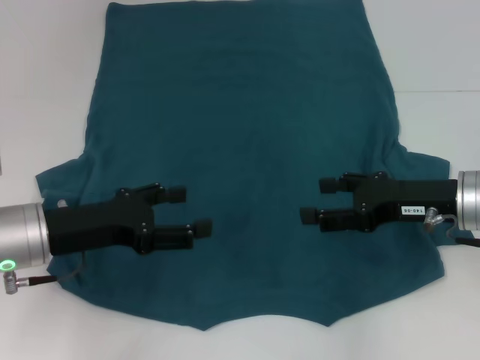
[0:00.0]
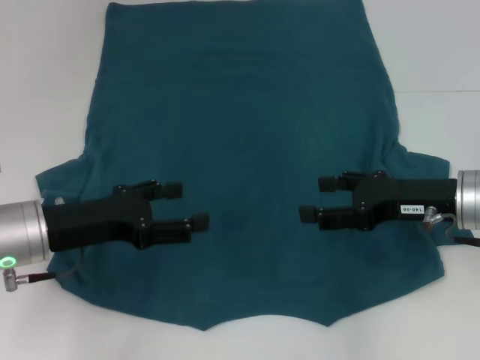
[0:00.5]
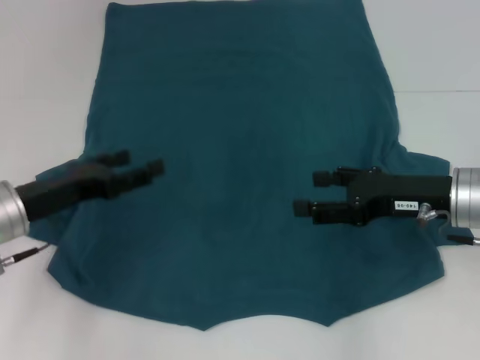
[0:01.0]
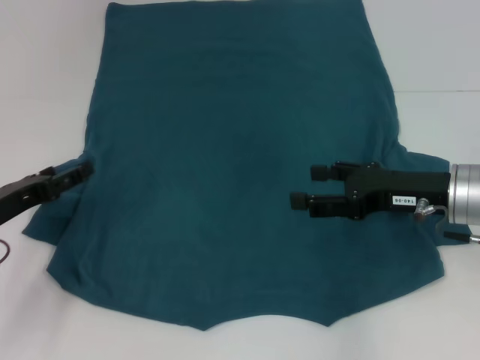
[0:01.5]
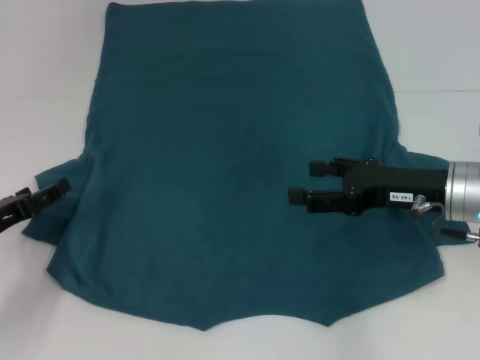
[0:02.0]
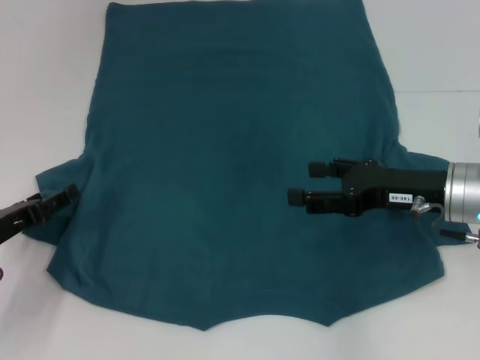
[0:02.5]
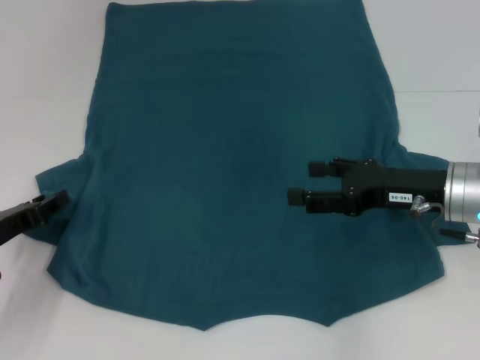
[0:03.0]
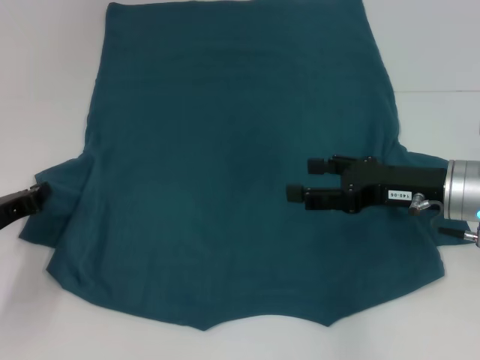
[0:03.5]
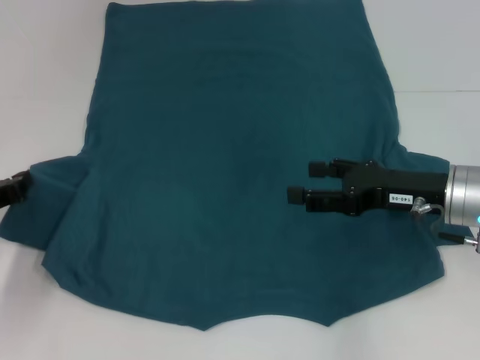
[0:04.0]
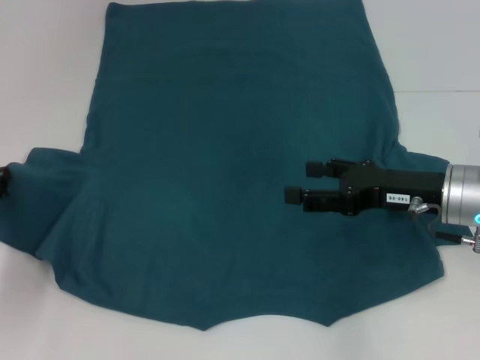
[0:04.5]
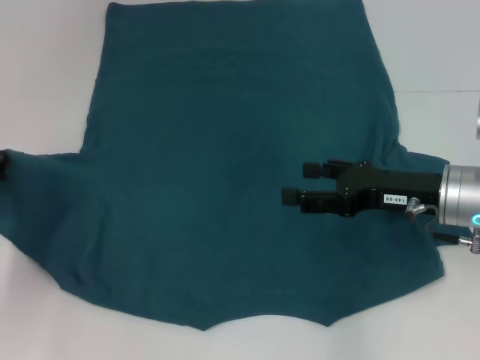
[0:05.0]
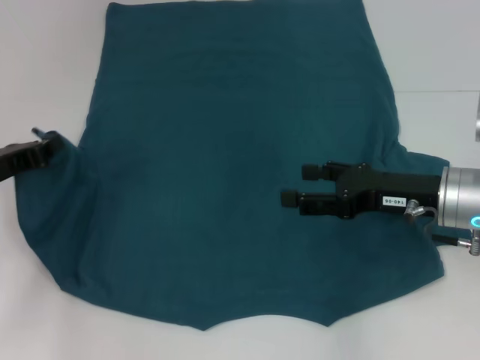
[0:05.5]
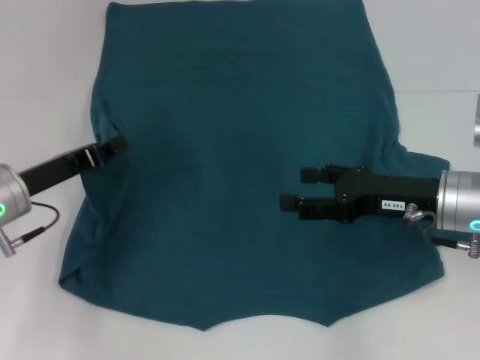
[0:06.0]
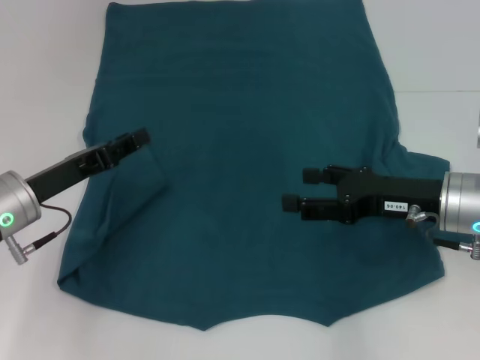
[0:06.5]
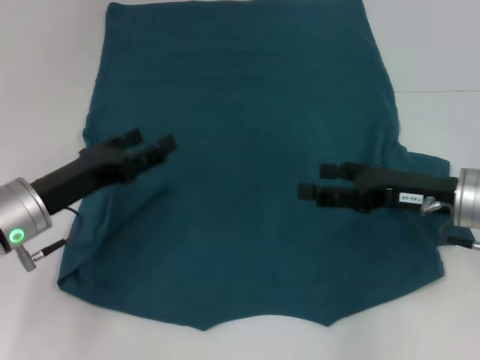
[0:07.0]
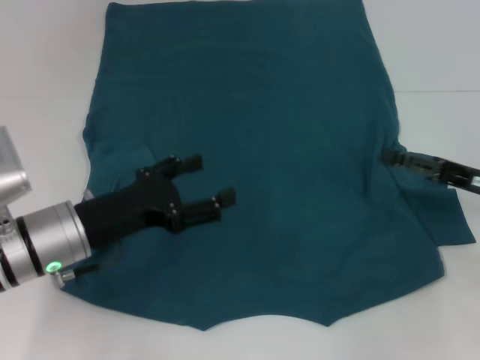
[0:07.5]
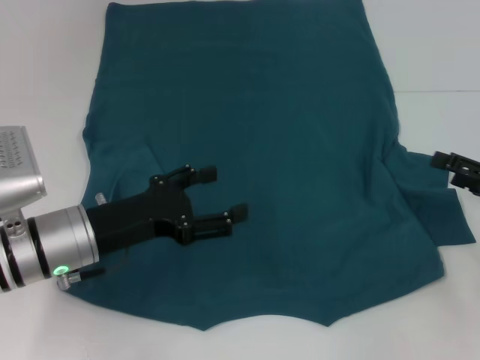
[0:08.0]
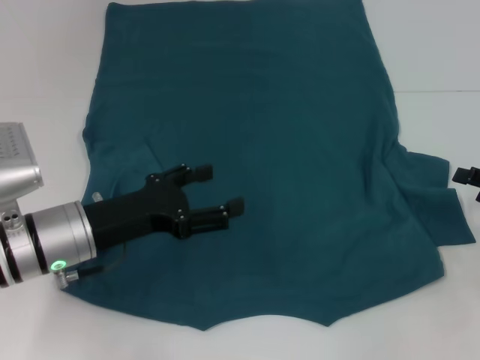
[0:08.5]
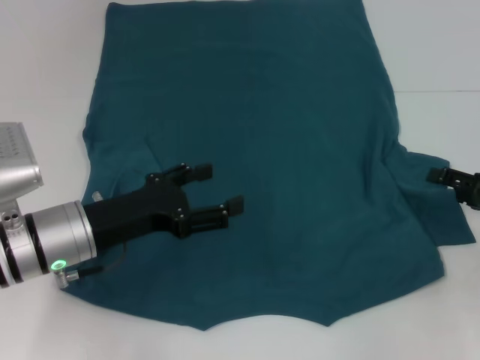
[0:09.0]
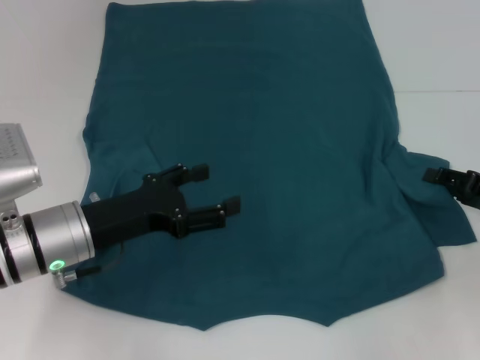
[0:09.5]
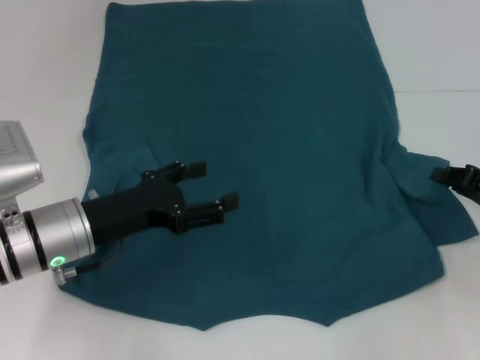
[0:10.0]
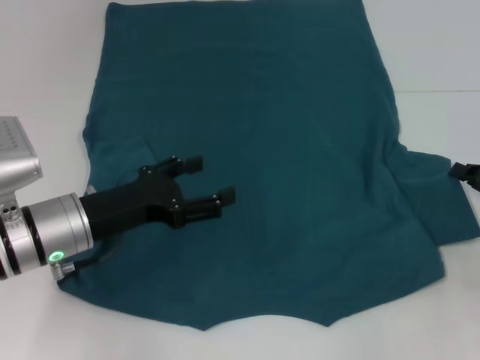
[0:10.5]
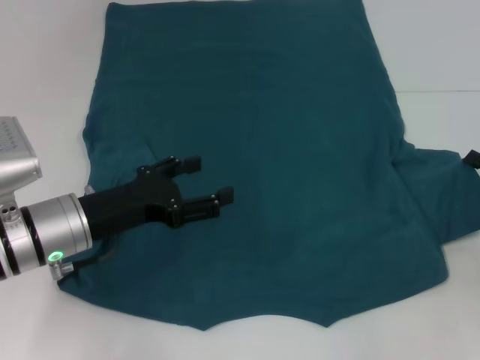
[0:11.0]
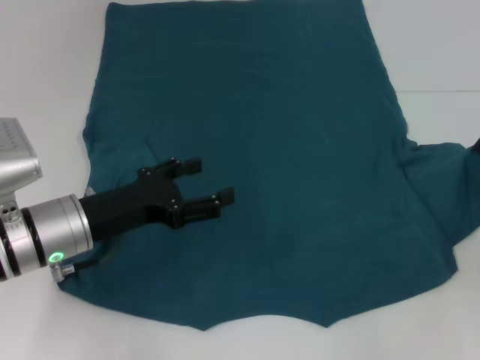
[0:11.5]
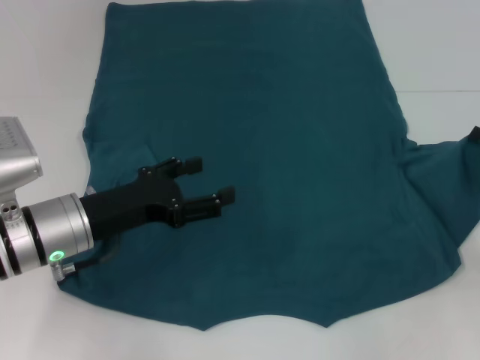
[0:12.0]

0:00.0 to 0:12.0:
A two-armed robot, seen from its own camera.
Step, 0:00.0 to 0:06.0: Fold the bottom left sleeve with your left hand.
0:00.0 to 0:02.0: The left gripper shifts approximately 10 cm to the left and downward.
0:02.0 to 0:04.0: The left gripper closes.
0:04.0 to 0:06.0: The left gripper shifts approximately 5 cm to the right.
0:06.0 to 0:08.0: The right gripper heads to the right, covering roughly 15 cm. Meanwhile the left gripper moves to the right, some 5 cm, and opens.
0:08.0 to 0:10.0: The right gripper closes up.
0:10.0 to 0:12.0: The grippers stay close to where they were, moving slightly.

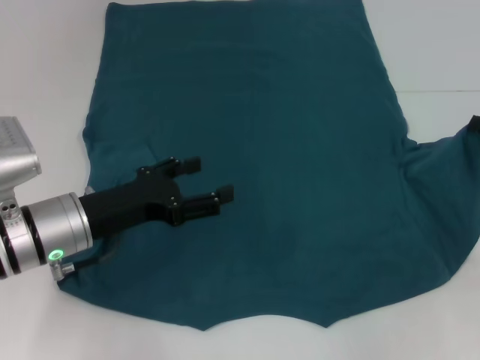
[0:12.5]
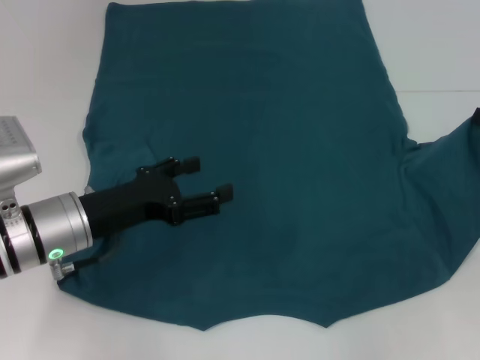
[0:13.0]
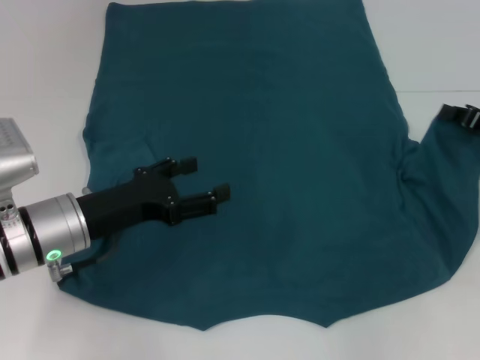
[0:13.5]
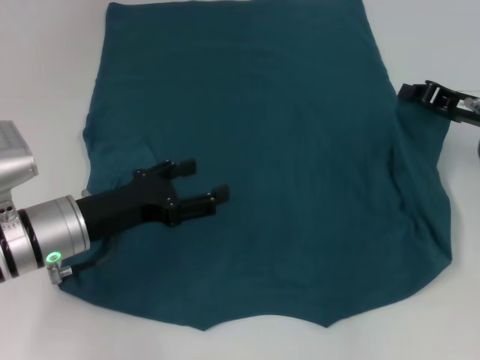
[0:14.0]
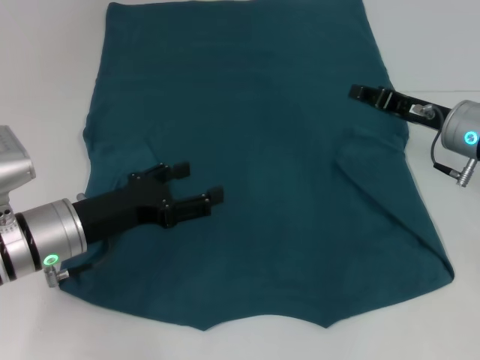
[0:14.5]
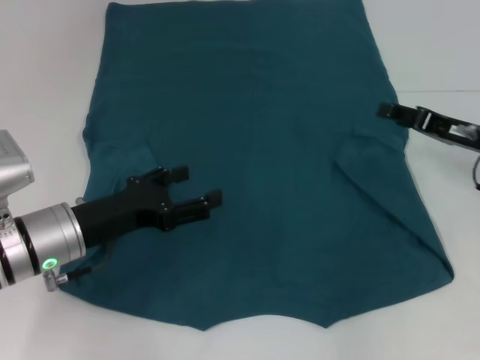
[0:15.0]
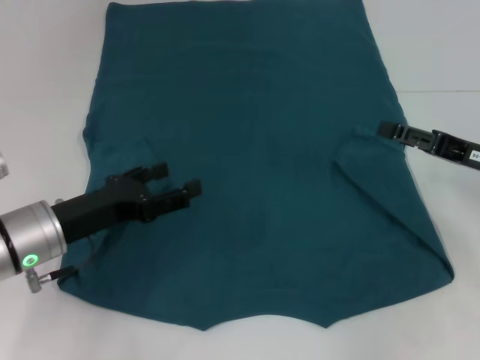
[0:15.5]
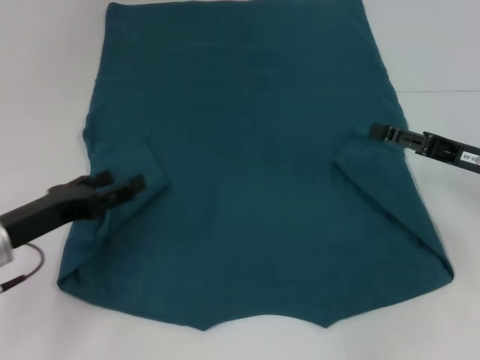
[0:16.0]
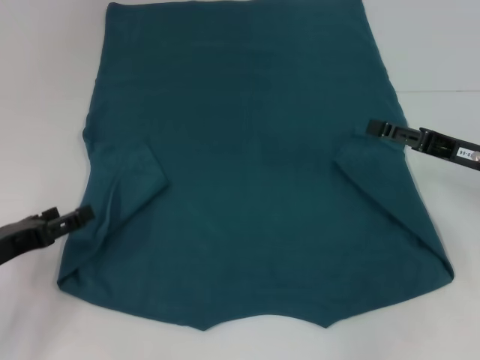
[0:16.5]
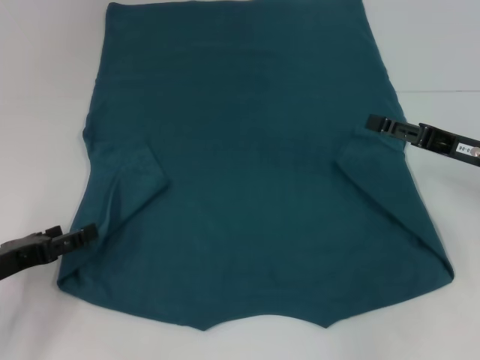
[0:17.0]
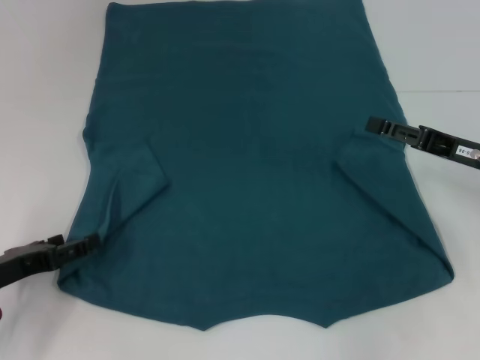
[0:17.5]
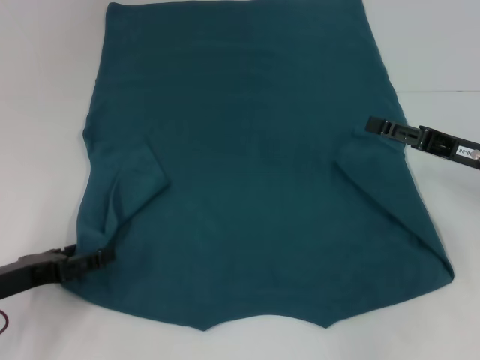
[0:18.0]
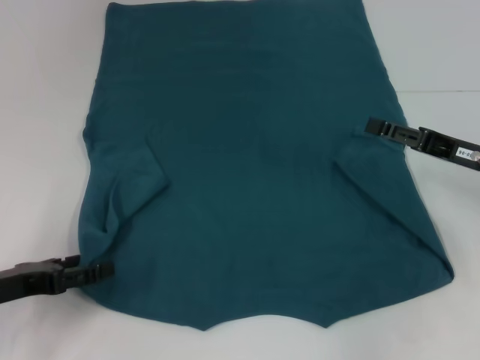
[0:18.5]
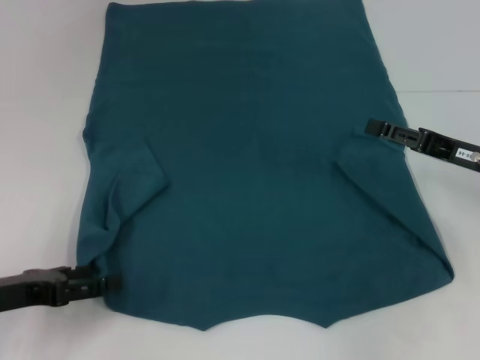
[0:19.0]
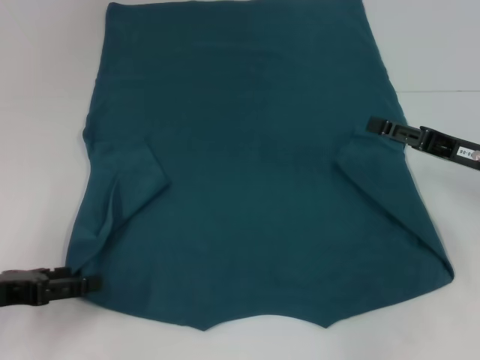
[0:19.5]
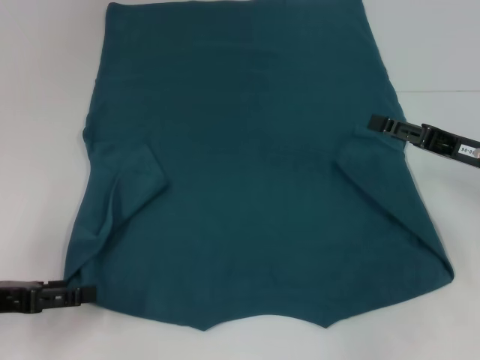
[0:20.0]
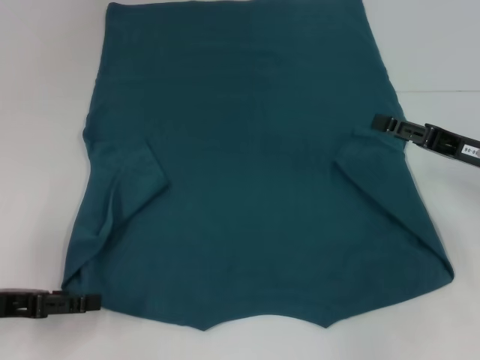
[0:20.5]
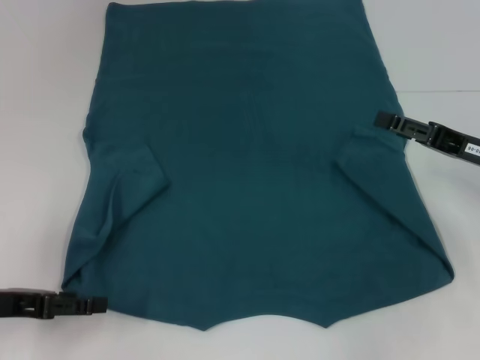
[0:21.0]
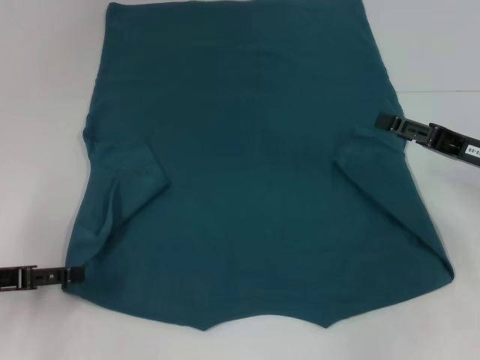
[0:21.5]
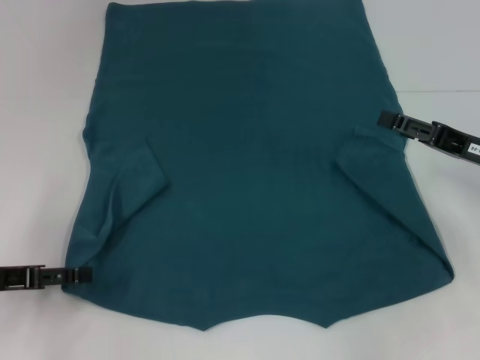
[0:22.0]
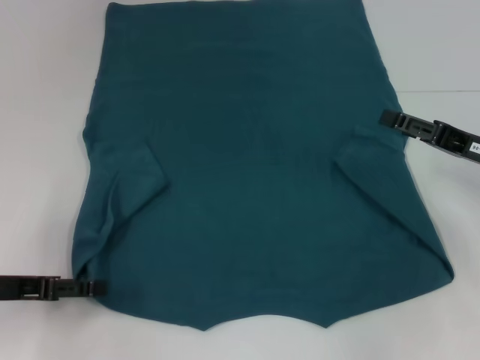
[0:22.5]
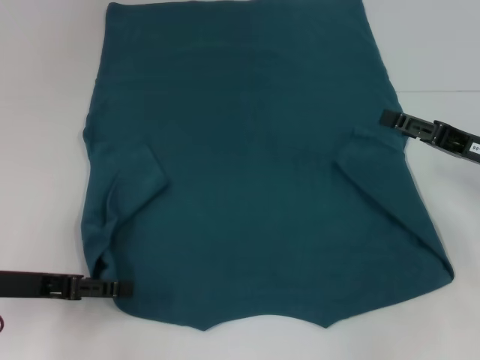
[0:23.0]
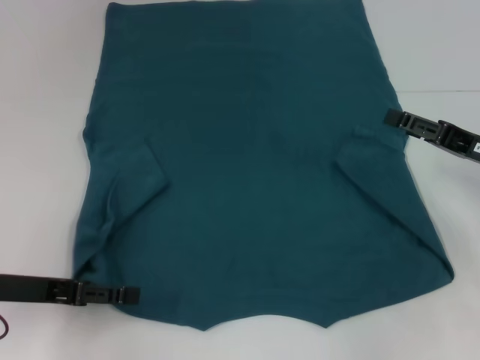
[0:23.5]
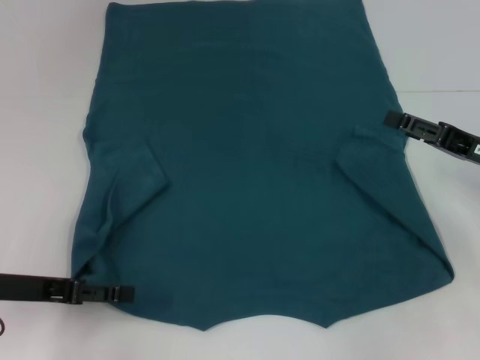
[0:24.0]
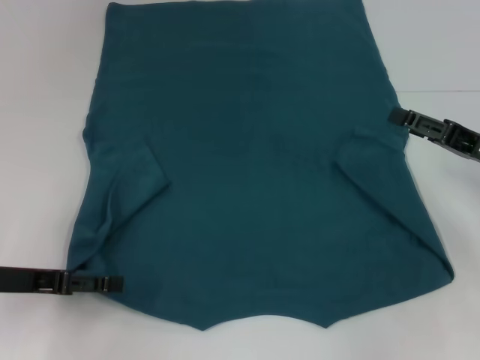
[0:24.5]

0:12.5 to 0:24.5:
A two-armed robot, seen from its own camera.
Step, 0:12.5 to 0:14.5: Fold the bottom right sleeve to the right.
0:12.5 to 0:14.5: The right gripper is displaced to the left by about 10 cm.
0:14.5 to 0:16.5: The left gripper shifts approximately 10 cm to the left; the right gripper shifts approximately 5 cm backward, and opens.
0:16.5 to 0:18.5: There are only small adjustments of the grippers.
0:18.5 to 0:24.5: There are only small adjustments of the grippers.

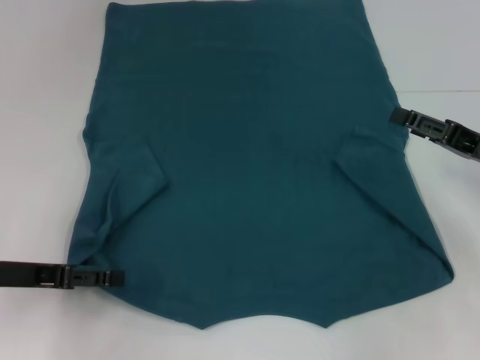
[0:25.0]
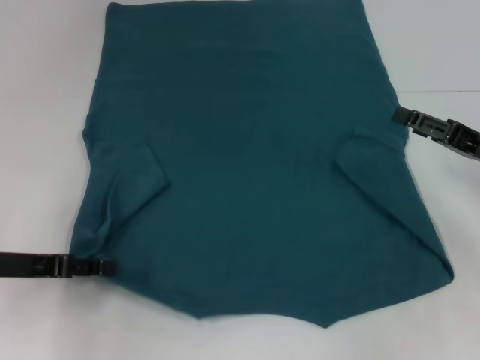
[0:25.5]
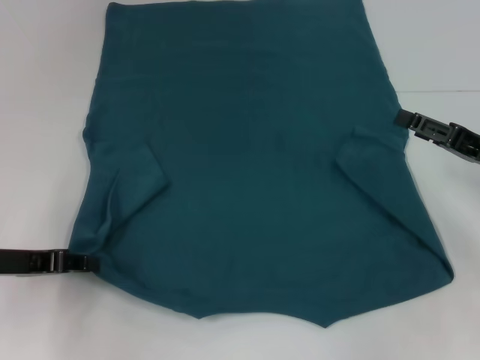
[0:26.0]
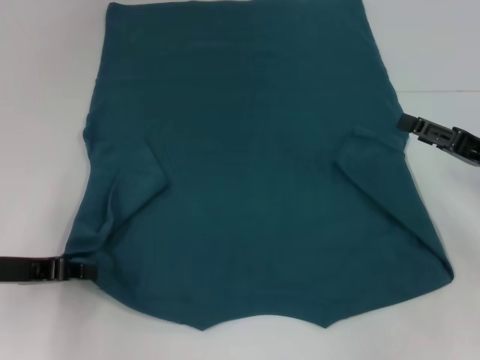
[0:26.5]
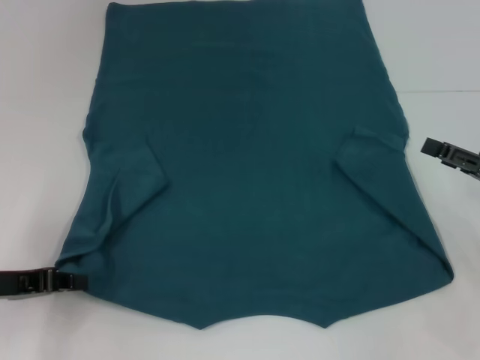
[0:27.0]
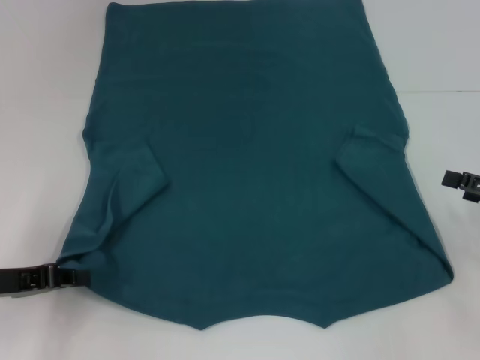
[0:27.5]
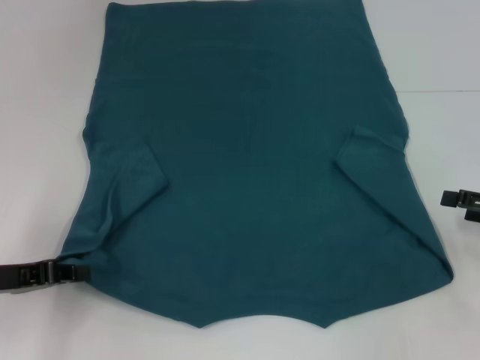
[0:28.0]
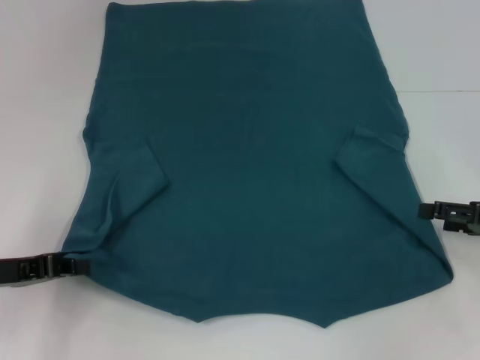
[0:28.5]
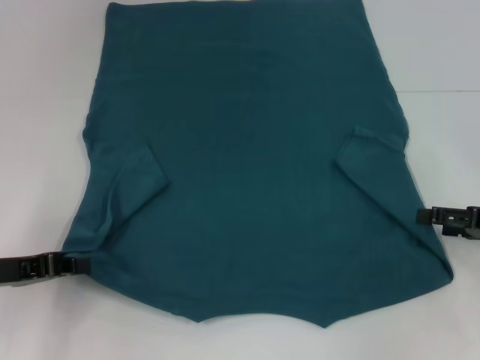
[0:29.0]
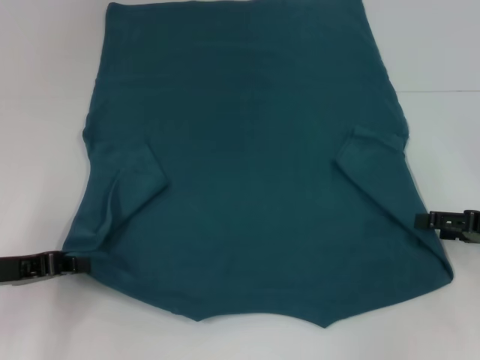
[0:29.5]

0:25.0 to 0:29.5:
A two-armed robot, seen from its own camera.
0:25.0 to 0:27.0: The left gripper closes its fingers.
